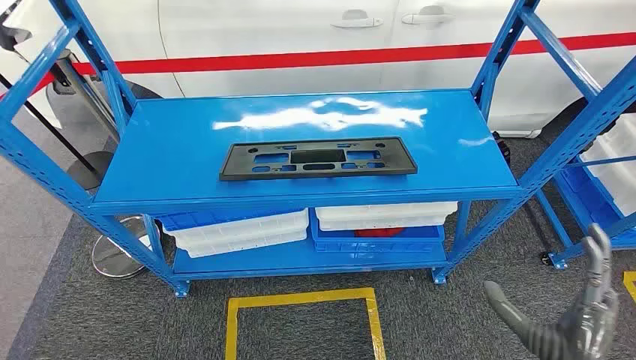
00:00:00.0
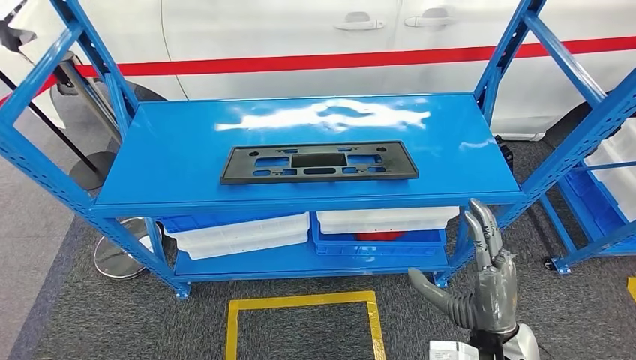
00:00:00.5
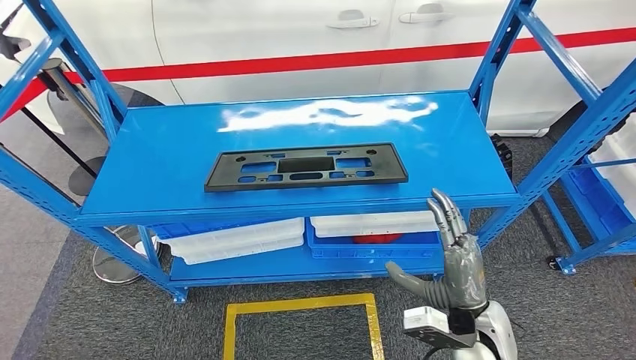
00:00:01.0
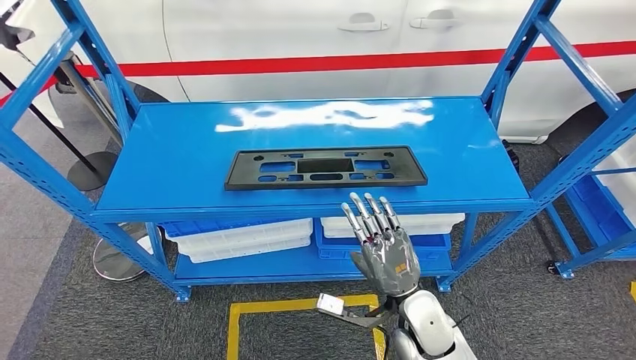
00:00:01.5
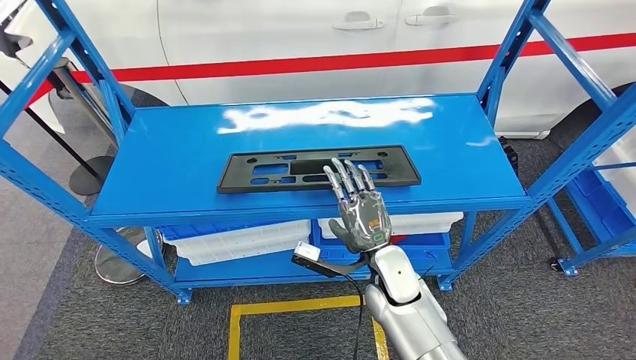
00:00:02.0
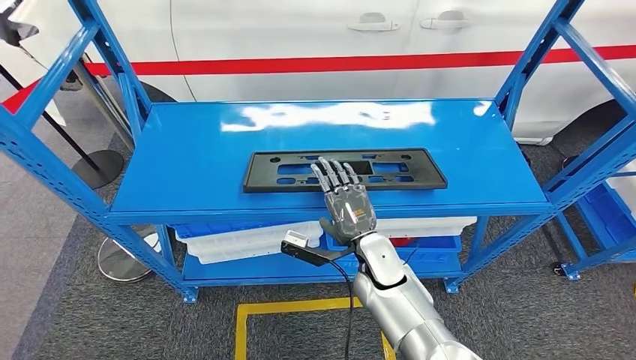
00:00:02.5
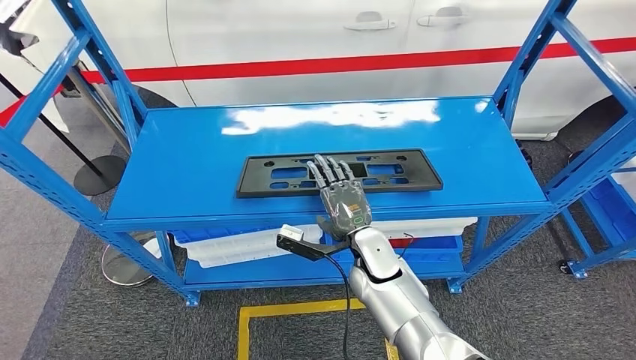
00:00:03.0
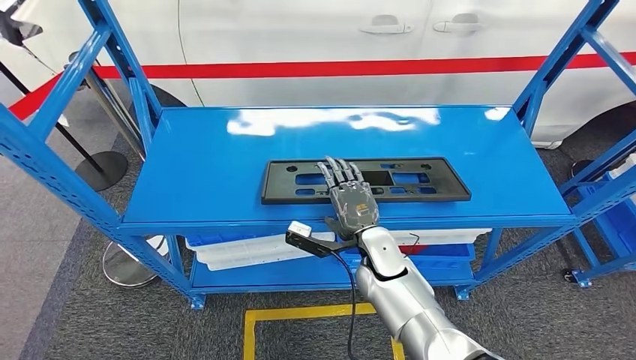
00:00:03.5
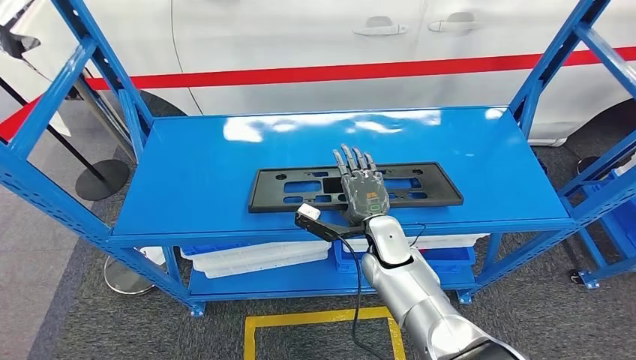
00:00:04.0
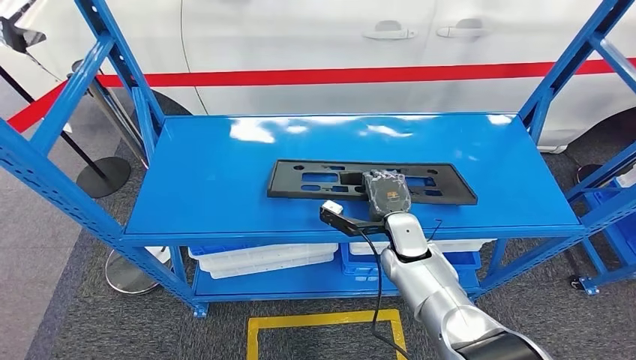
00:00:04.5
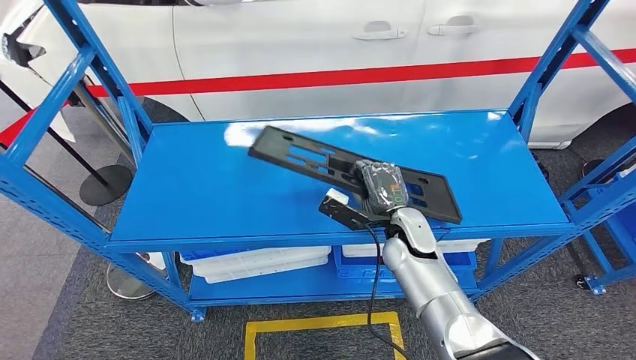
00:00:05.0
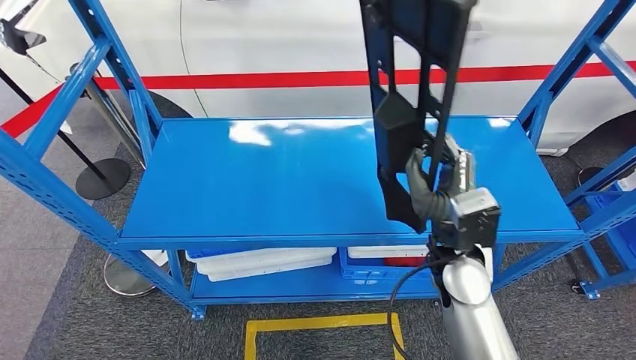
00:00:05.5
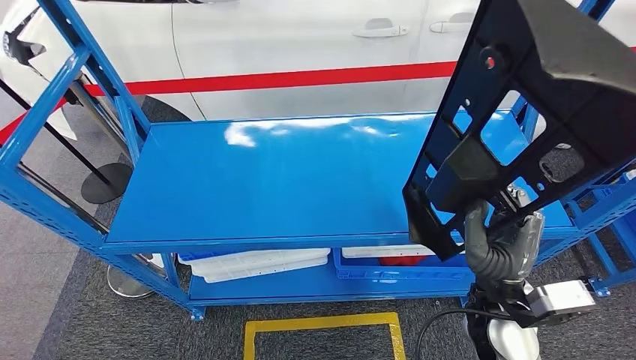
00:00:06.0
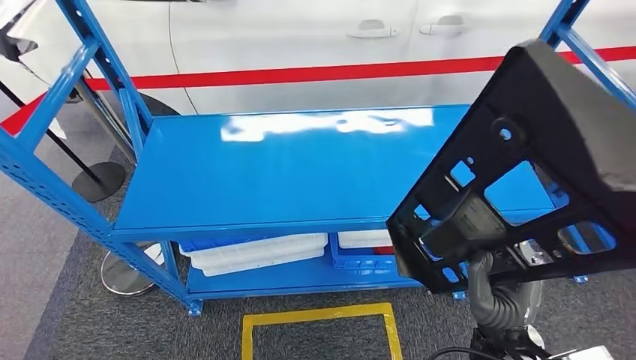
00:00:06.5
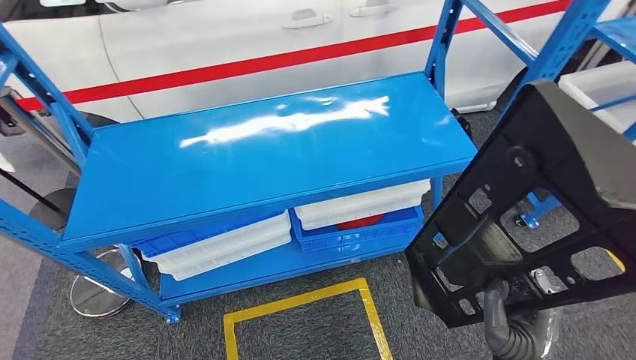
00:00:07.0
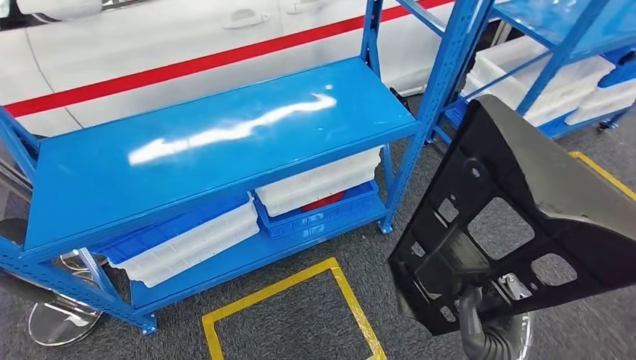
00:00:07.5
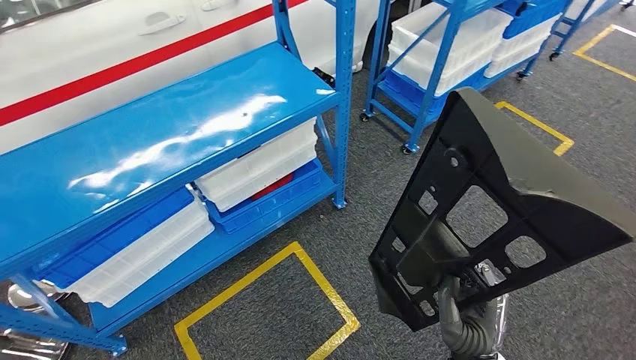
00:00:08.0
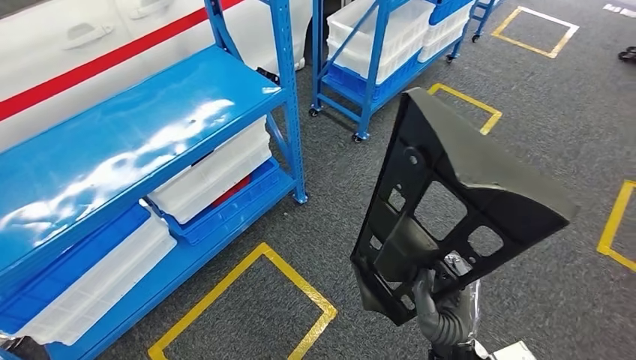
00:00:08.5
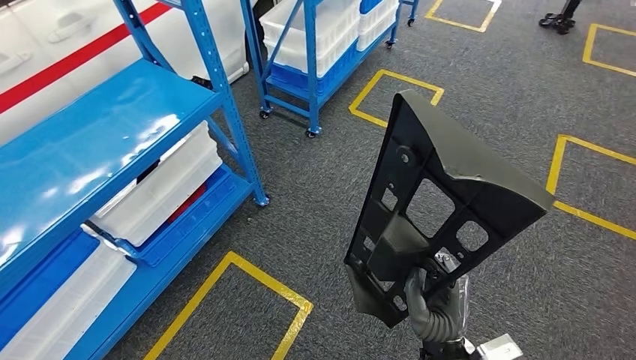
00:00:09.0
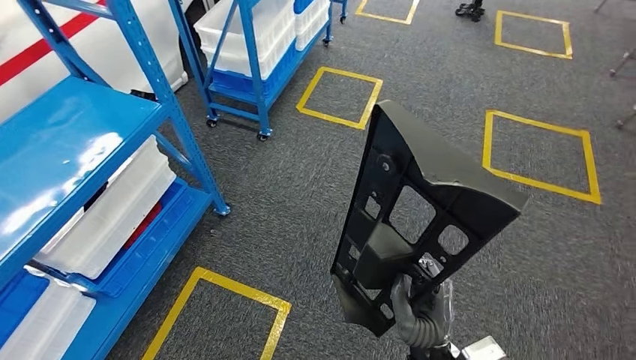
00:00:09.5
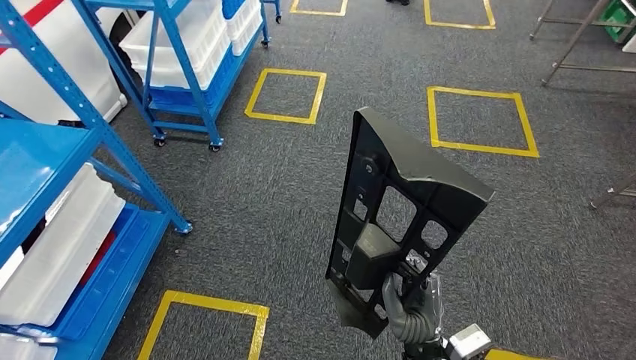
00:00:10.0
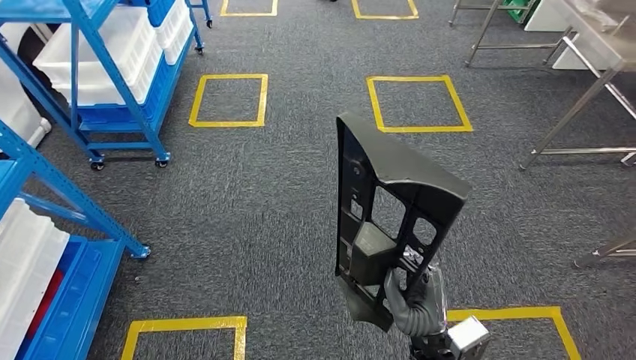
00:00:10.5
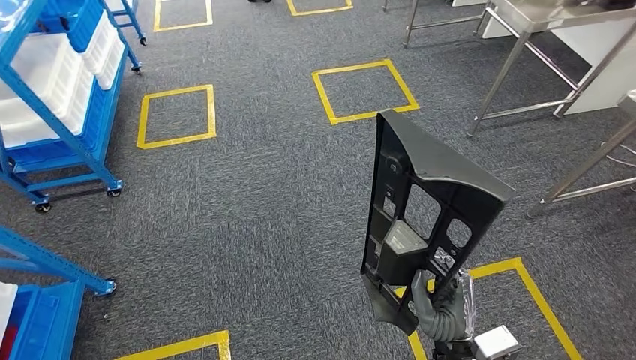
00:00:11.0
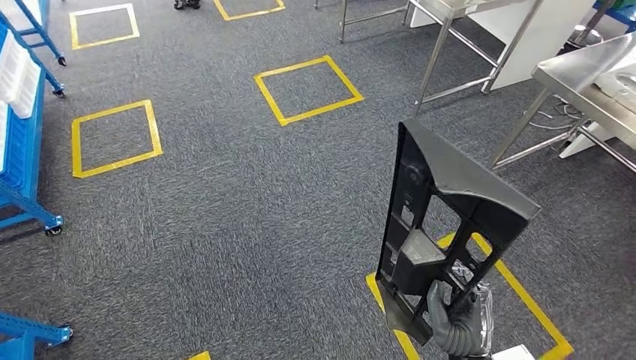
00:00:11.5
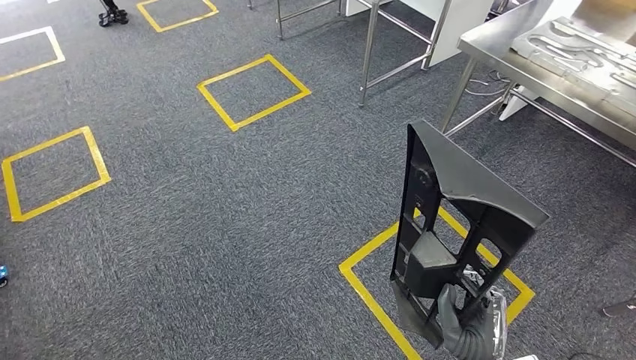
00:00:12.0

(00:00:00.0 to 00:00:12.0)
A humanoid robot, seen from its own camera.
Step, 00:00:00.0 - 00:00:06.0: Pick up the large material from the shelf.

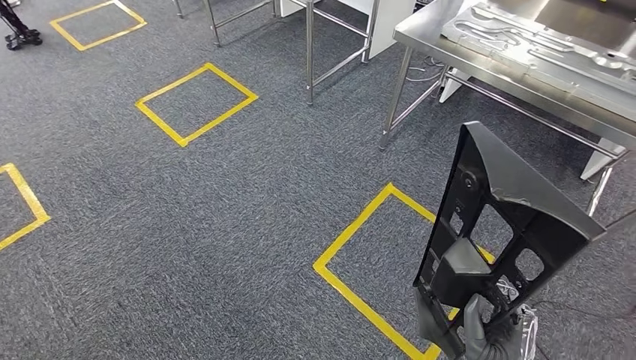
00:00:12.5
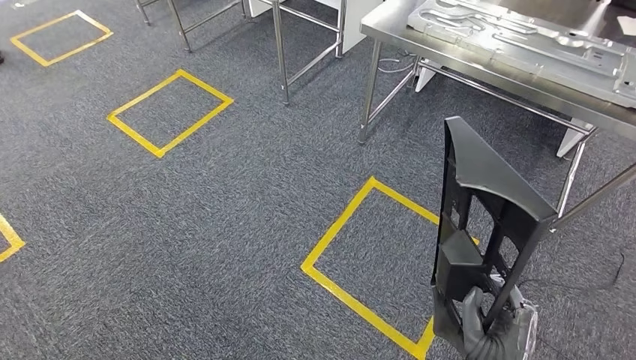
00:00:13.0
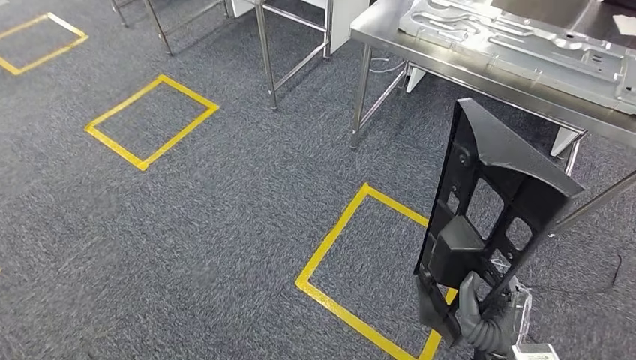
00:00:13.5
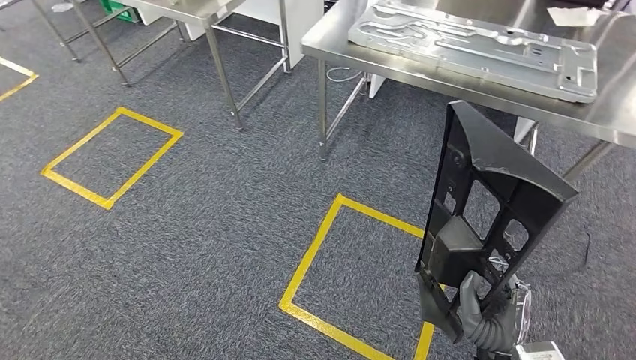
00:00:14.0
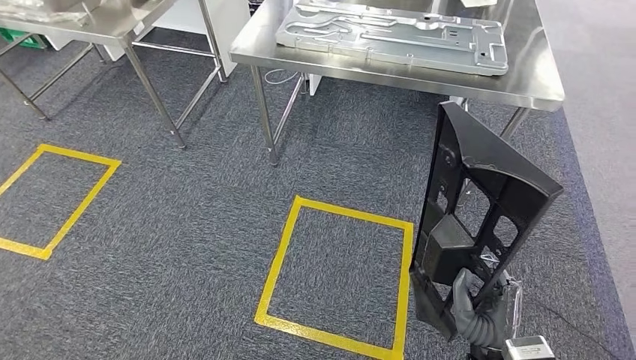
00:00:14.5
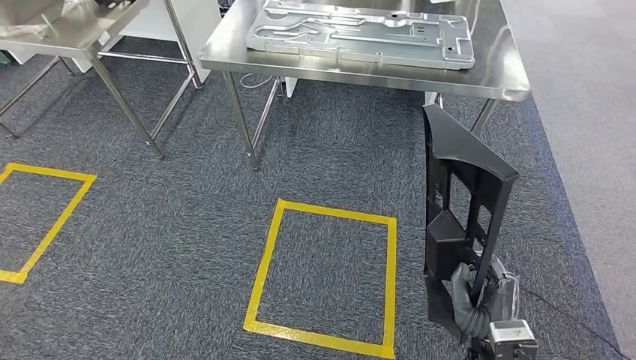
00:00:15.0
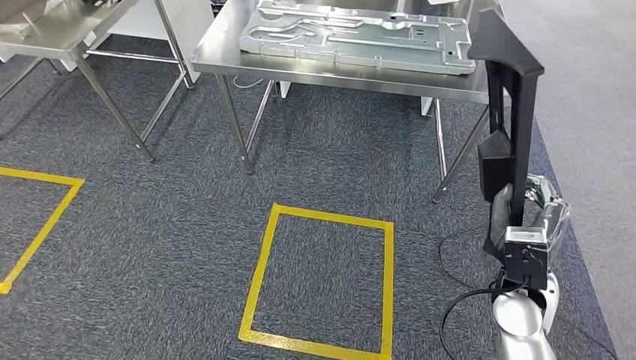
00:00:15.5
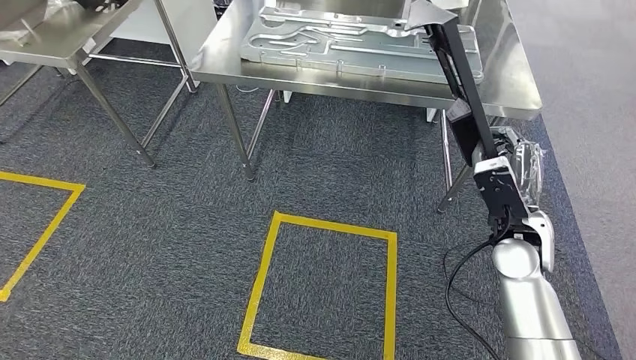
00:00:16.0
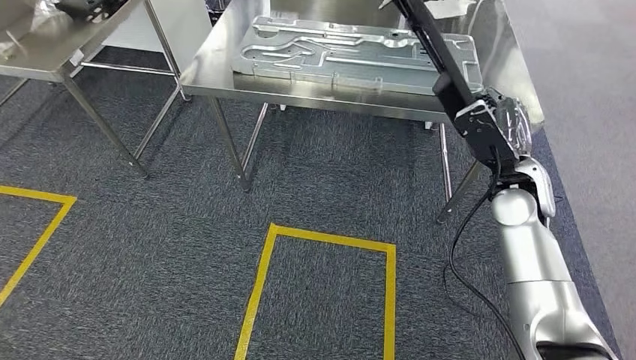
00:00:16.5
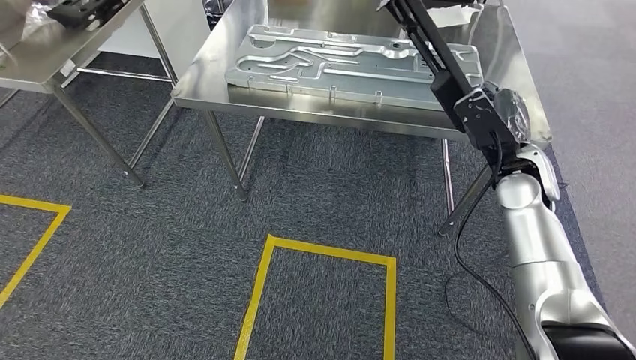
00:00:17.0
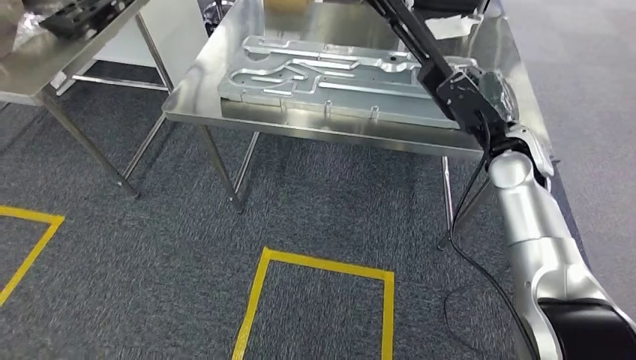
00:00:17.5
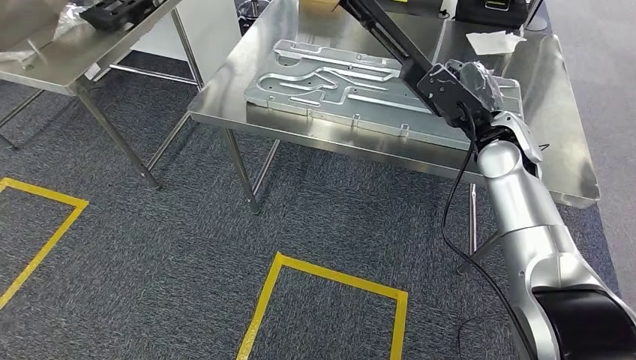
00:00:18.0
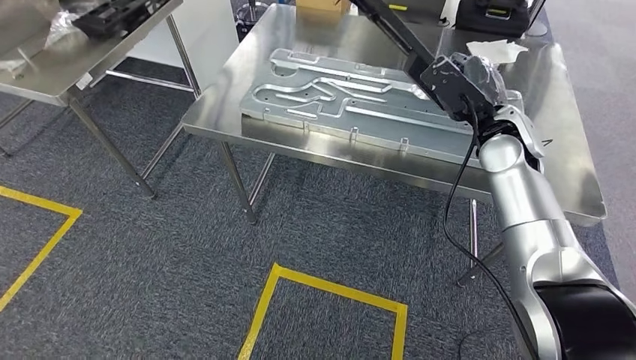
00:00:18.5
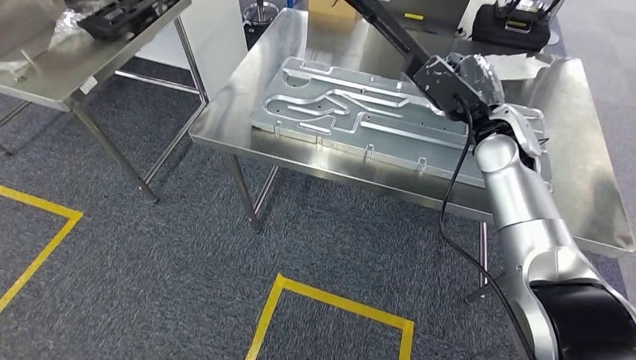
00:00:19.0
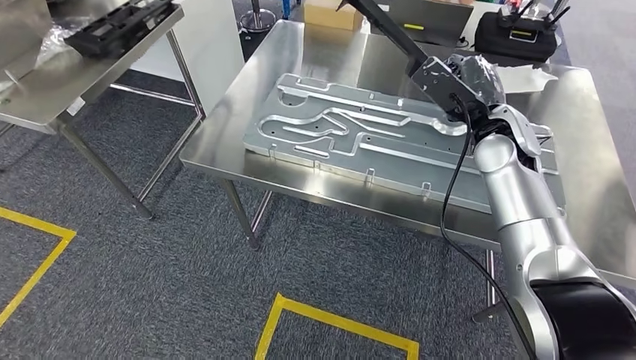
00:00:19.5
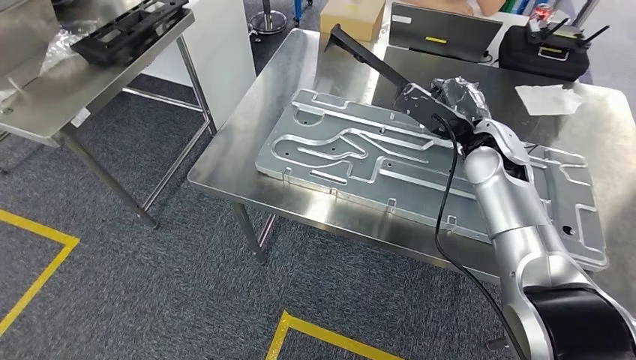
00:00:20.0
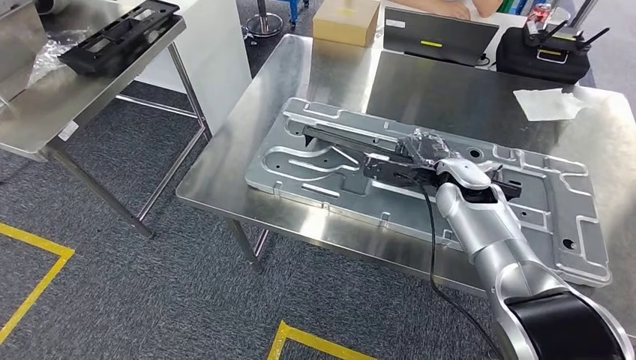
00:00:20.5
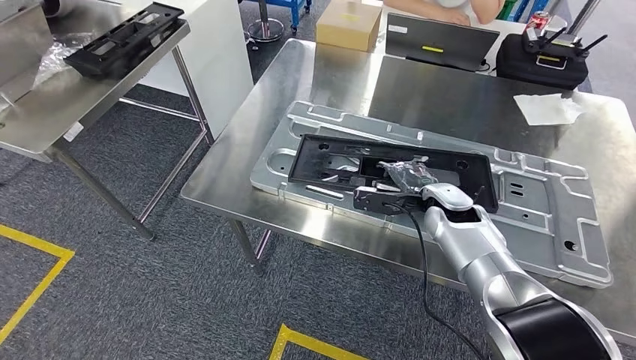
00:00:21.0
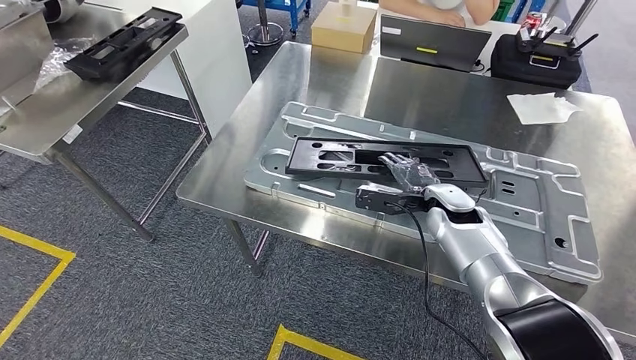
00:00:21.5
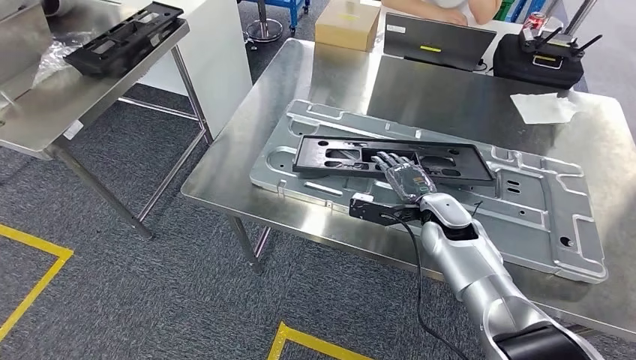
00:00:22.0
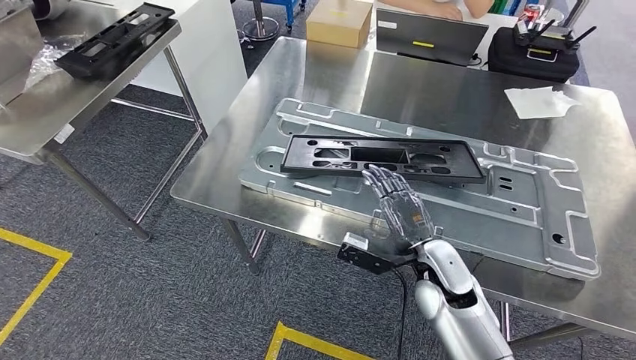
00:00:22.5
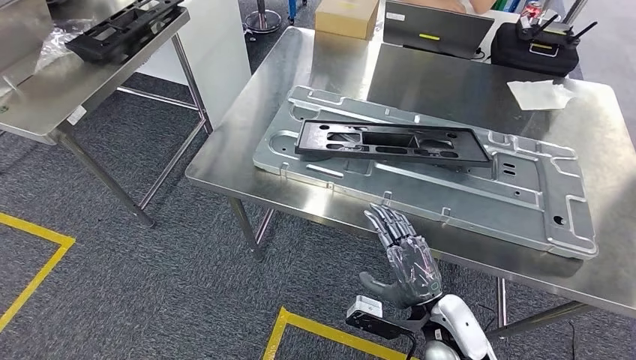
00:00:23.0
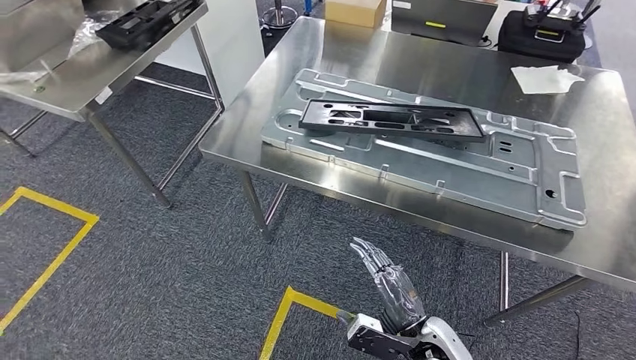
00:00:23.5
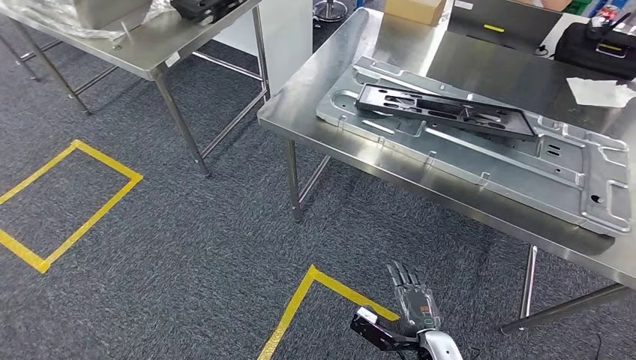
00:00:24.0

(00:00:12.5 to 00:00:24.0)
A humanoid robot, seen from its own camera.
Step, 00:00:12.5 - 00:00:19.0: Move the large material to the workbench.
